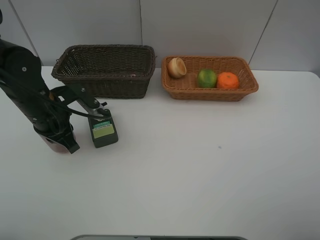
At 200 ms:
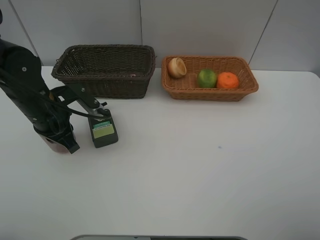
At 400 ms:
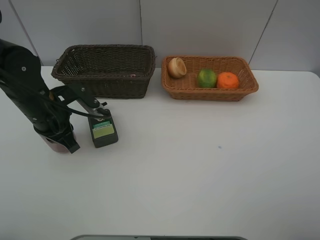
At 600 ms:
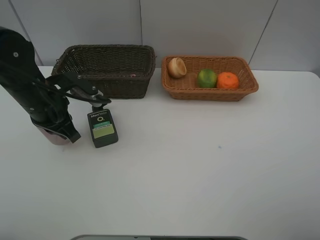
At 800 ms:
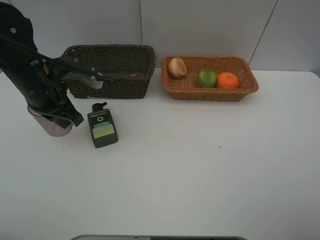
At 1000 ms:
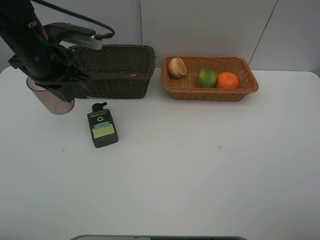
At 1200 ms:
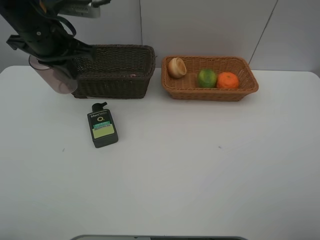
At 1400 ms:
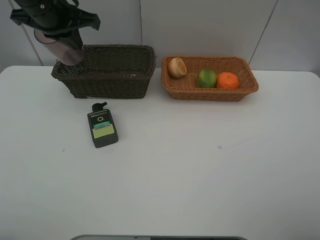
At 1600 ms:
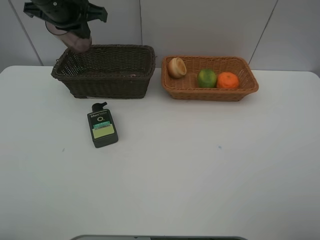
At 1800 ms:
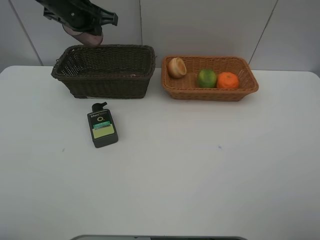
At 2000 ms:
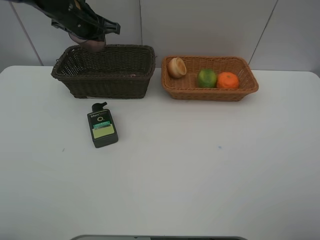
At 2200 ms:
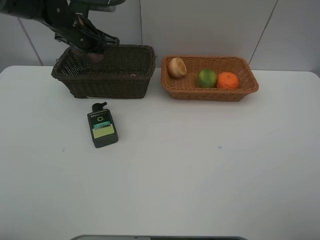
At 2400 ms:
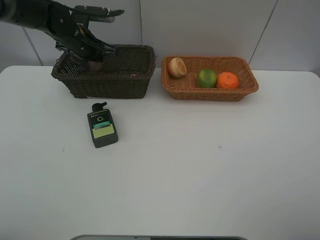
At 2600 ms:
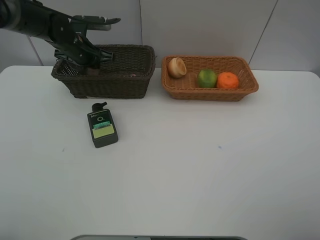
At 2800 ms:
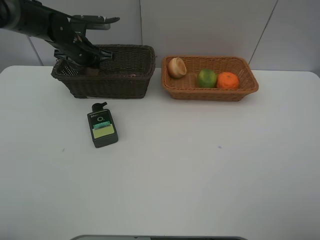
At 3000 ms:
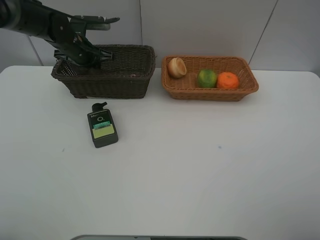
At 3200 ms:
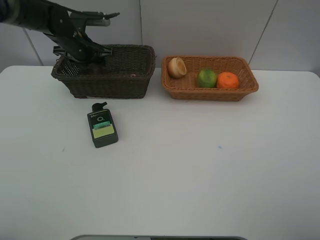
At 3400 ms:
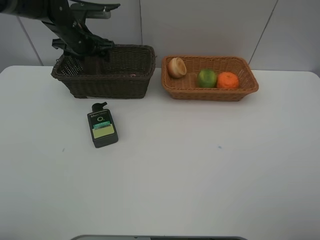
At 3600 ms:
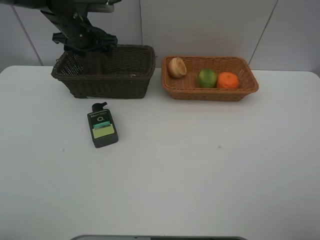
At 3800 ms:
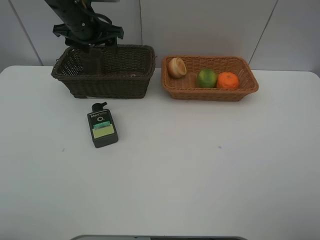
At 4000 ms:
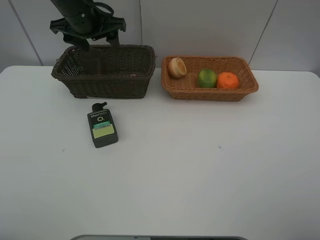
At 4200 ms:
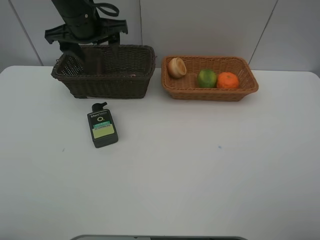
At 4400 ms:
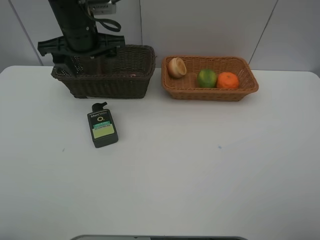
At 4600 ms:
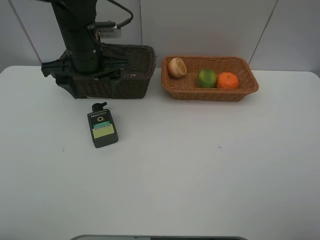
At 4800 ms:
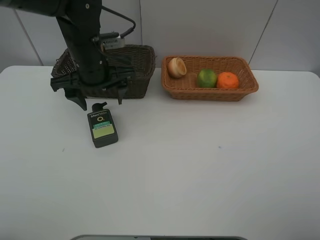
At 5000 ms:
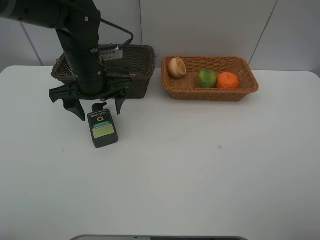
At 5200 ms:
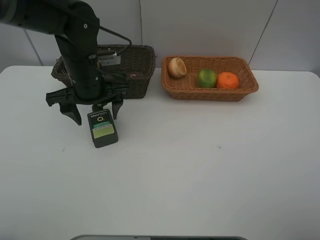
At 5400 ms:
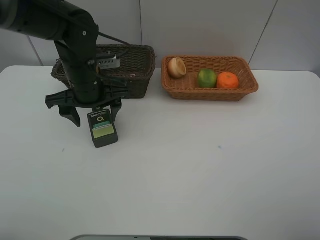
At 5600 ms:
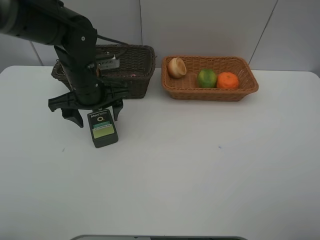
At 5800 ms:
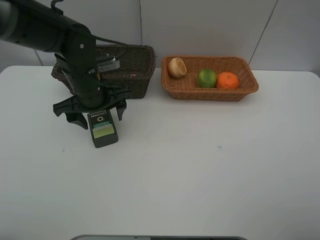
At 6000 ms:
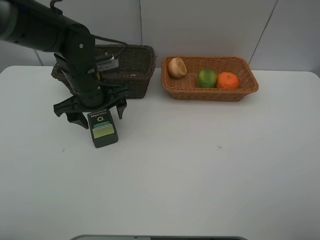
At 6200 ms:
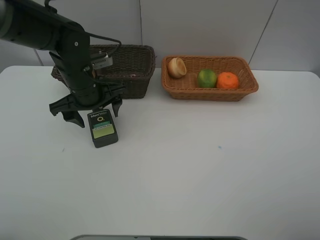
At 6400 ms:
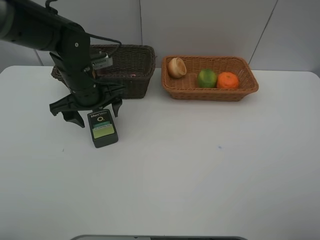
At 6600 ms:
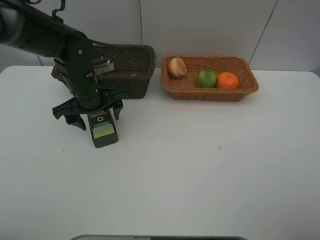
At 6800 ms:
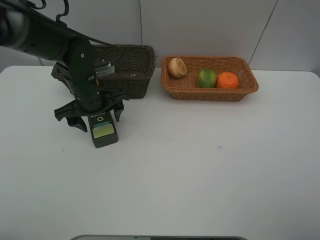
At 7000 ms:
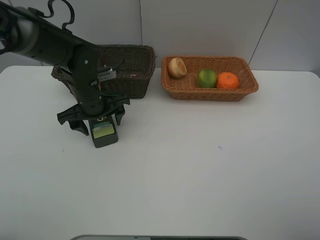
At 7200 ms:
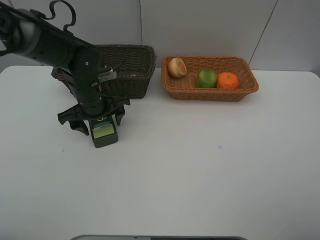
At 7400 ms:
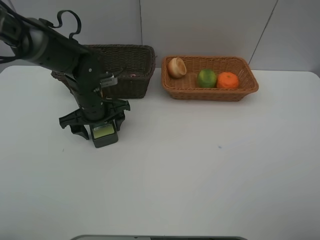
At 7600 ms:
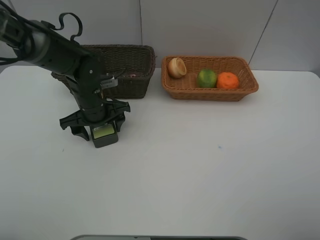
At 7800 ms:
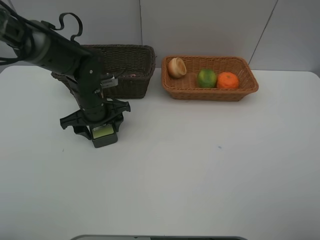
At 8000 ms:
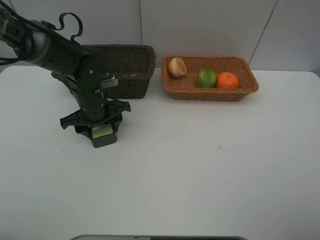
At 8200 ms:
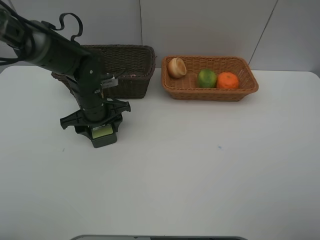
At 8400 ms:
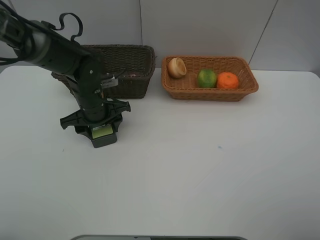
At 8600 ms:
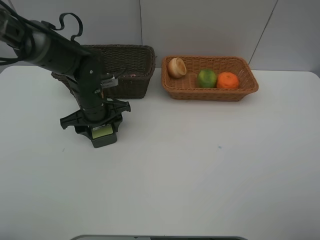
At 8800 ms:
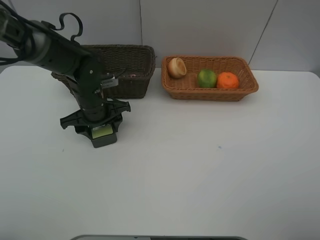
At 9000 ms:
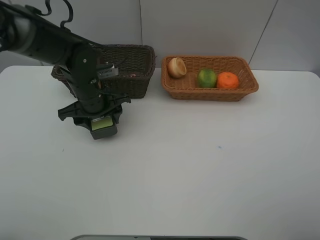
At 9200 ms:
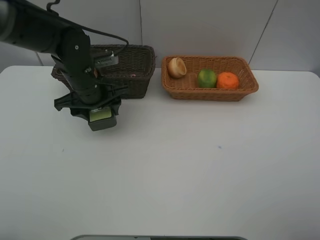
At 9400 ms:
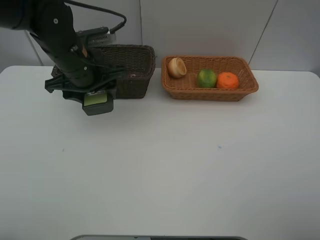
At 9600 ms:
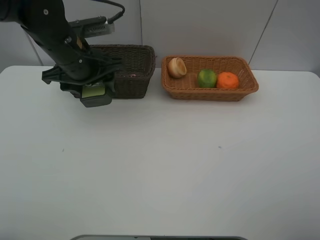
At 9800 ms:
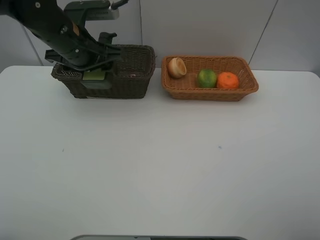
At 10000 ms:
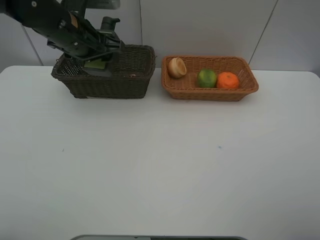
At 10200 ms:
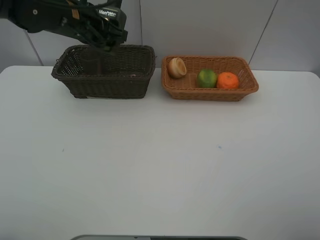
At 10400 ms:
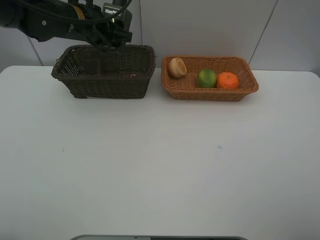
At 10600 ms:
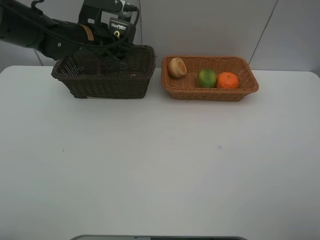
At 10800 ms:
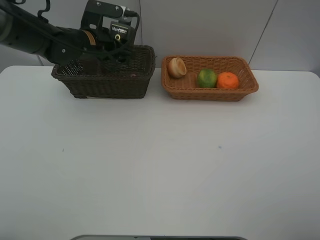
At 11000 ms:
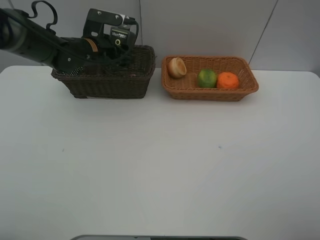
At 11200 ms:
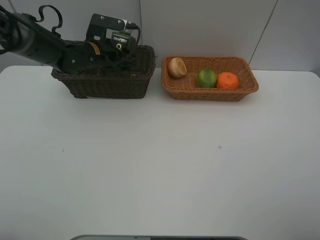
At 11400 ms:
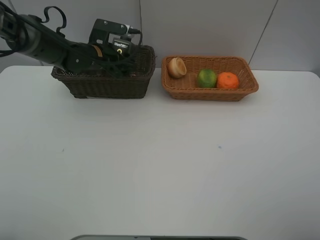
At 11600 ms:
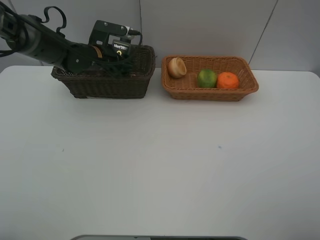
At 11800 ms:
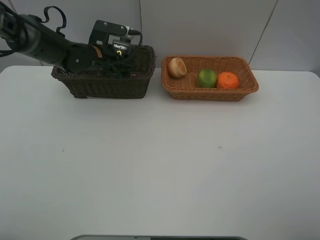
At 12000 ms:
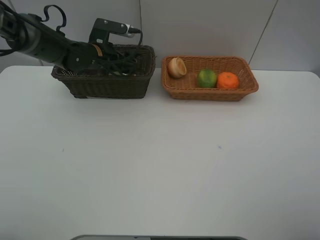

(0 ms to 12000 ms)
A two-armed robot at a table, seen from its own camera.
Task of the whole recording: place multiple objects separately in different baskets.
Step, 800 ms - 3400 ms: Place the brown cup in the dark basket with left gripper.
Step, 3600 ms - 9200 ms: Pick up the facial cleanser with left gripper.
0 ms - 1600 ms: The left gripper shifts about 20 cm upward and forward.
1600 ms - 3000 ms: The left gripper shifts approximately 15 cm downward and forward.
3000 ms - 4400 ms: The left gripper shifts approximately 15 cm backward, upward and to the right, and opens up.
4400 ms - 6000 ms: The left gripper moves downward, roughly 10 cm.
6000 ms - 7600 ms: The left gripper goes about 5 cm downward.
7600 ms - 9000 ms: The grippers make only small movements.
9000 ms - 10400 ms: The left gripper heads upward and forward, covering roughly 10 cm.
10400 ms - 12000 ms: The left gripper is displaced downward by approximately 10 cm.

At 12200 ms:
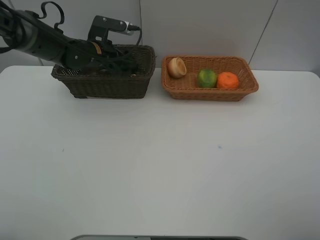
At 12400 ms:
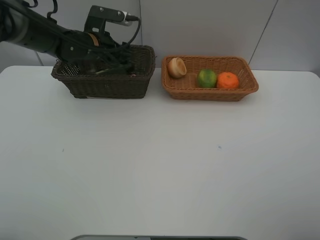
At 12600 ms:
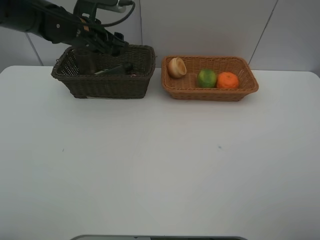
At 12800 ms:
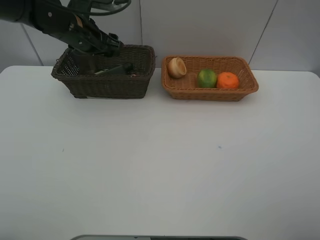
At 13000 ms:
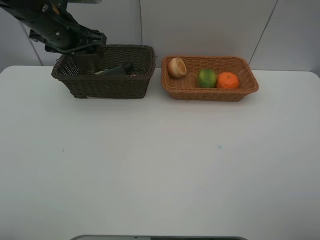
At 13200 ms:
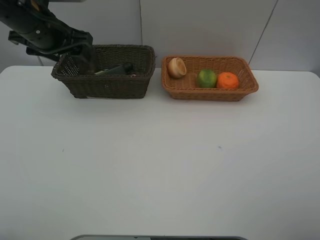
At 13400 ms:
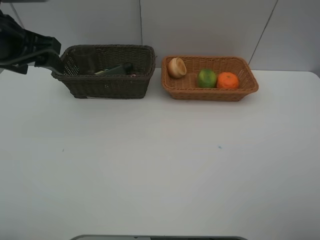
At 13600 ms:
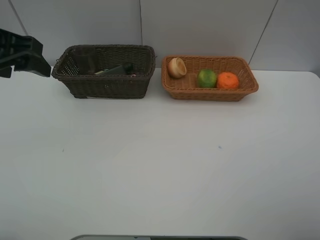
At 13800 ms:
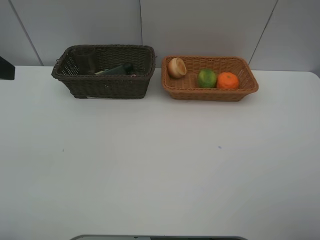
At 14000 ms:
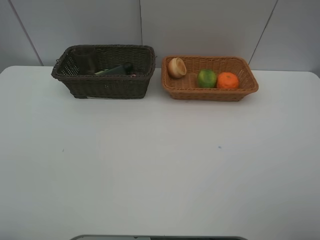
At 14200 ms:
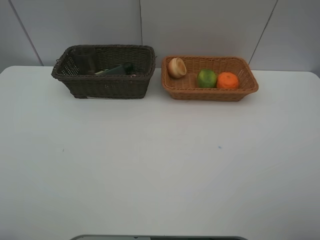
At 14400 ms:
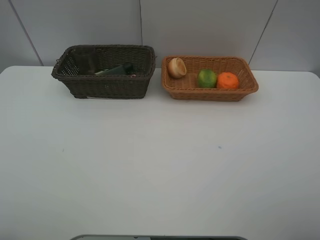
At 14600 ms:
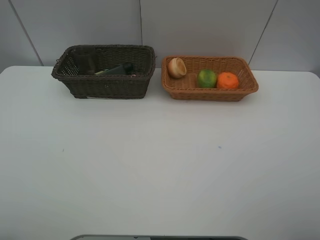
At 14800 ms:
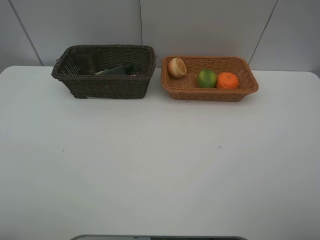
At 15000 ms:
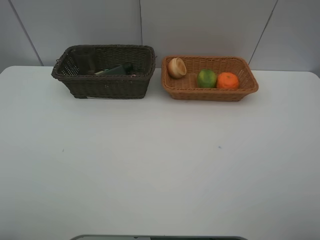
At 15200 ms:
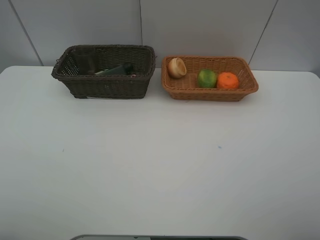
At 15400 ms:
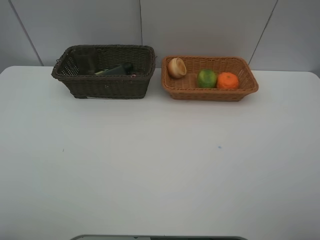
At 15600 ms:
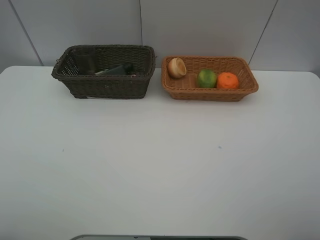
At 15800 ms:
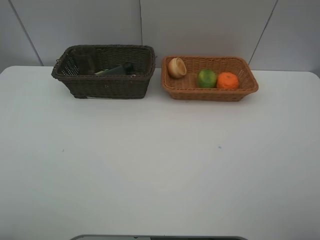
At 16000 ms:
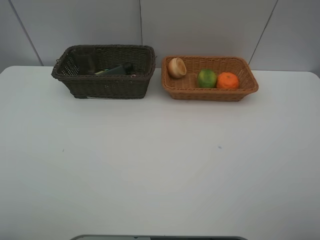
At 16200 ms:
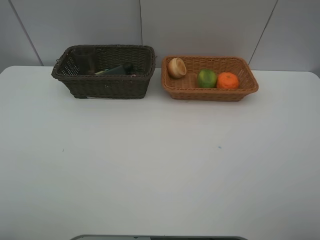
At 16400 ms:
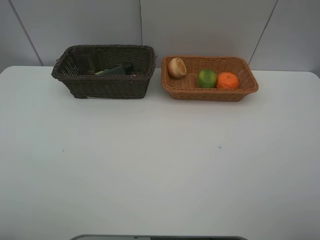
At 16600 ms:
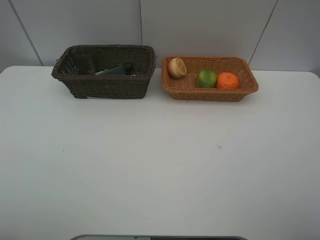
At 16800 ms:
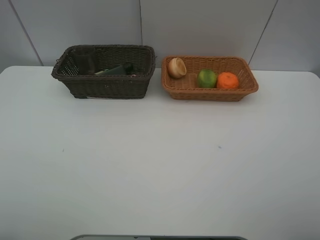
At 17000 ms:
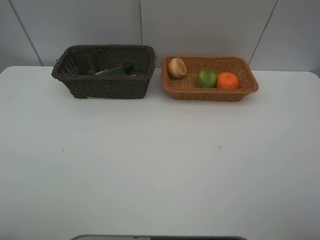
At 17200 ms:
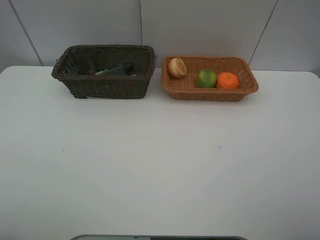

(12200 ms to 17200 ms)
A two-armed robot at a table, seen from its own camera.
Task of the whole recording: place multiple objects separately in different baskets.
12200 ms - 13800 ms: The left gripper goes about 35 cm backward, upward and to the left.
